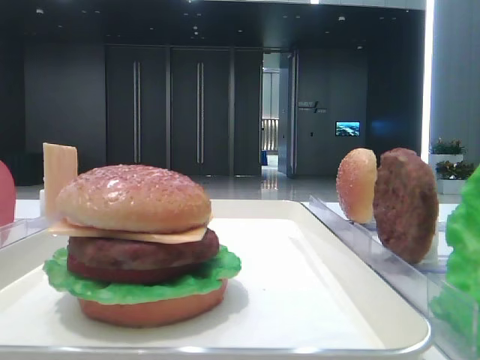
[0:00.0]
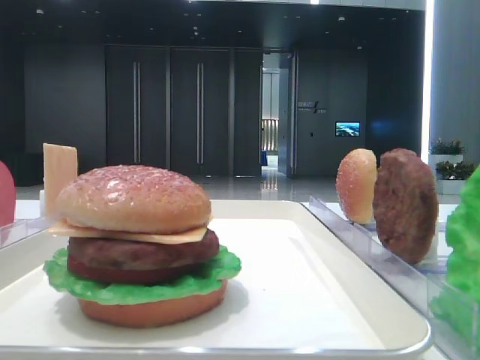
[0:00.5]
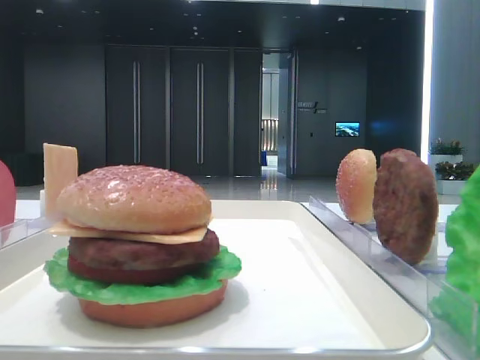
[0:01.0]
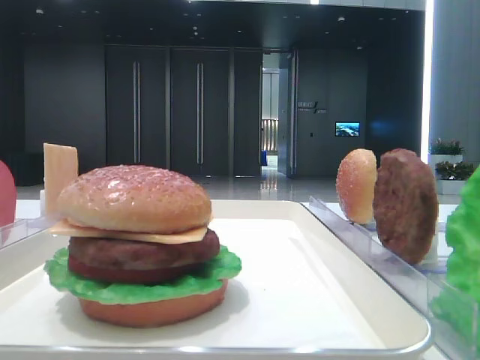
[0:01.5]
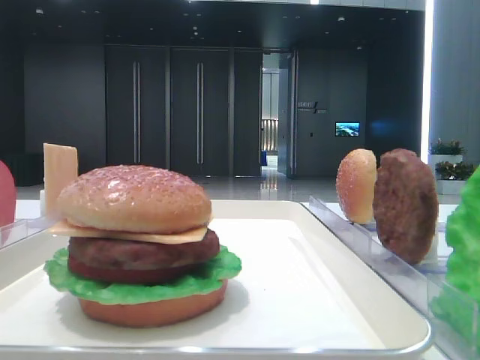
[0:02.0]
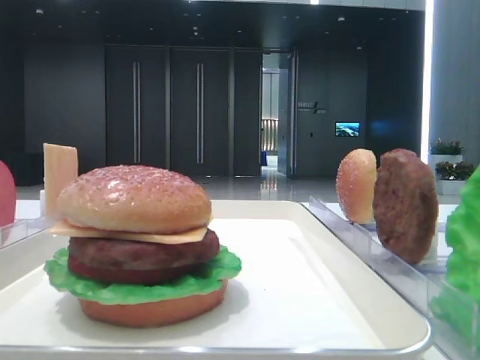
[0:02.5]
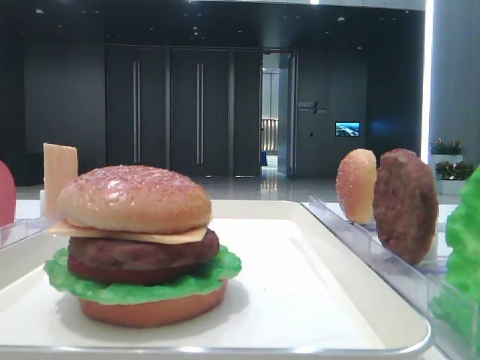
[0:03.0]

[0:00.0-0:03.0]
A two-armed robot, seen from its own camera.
0:01.5 to 0:03.0: Both grippers stay put.

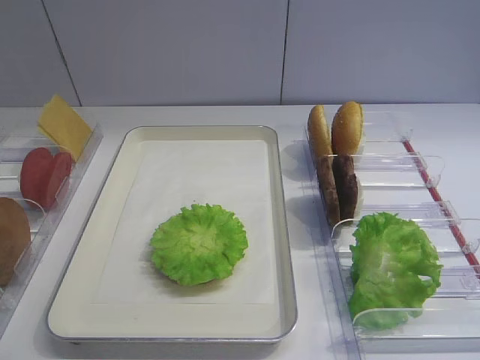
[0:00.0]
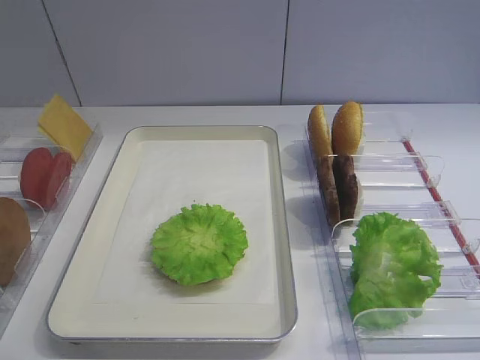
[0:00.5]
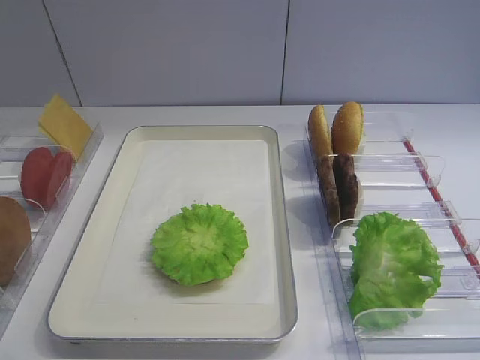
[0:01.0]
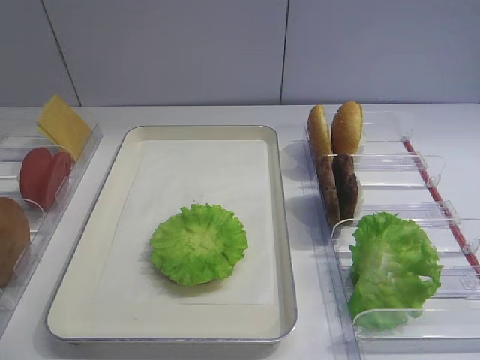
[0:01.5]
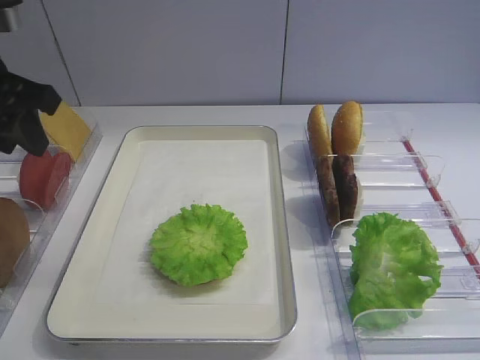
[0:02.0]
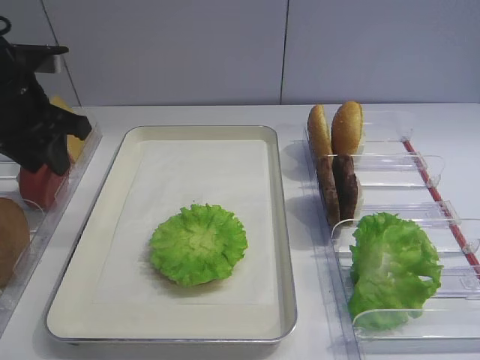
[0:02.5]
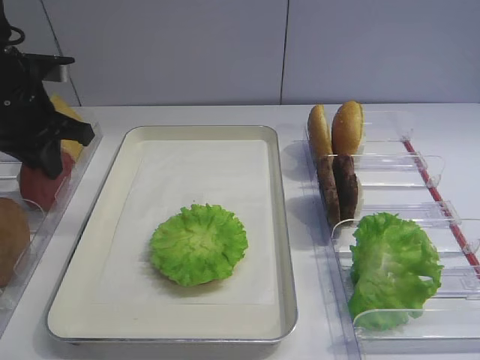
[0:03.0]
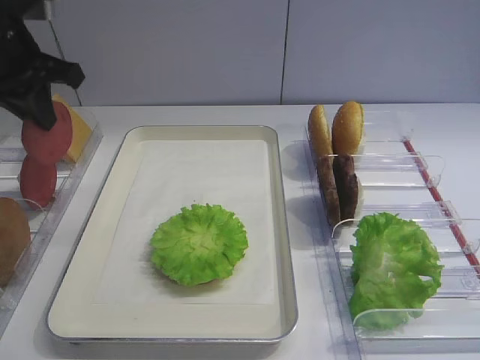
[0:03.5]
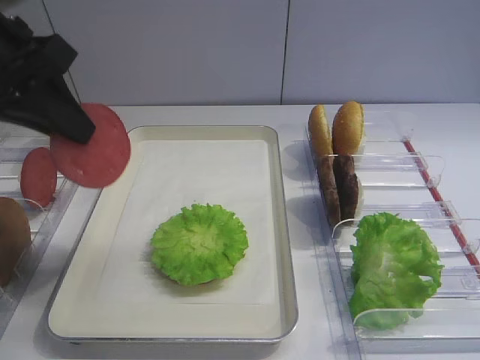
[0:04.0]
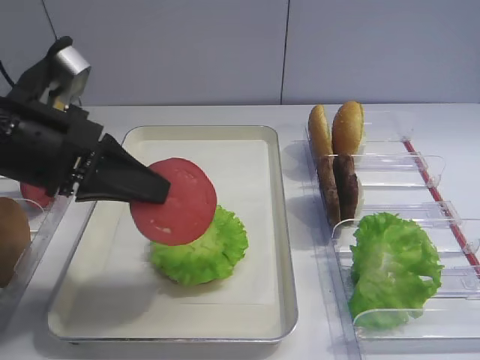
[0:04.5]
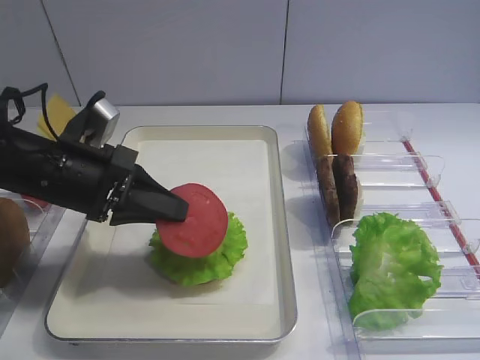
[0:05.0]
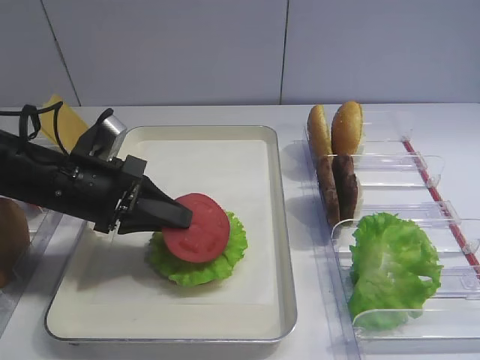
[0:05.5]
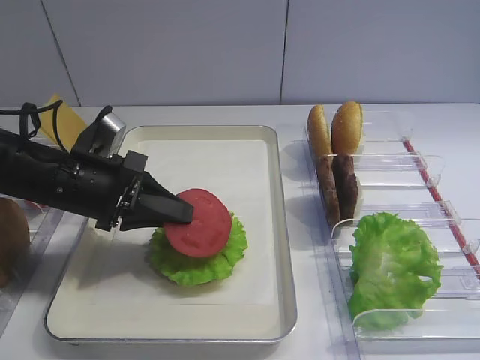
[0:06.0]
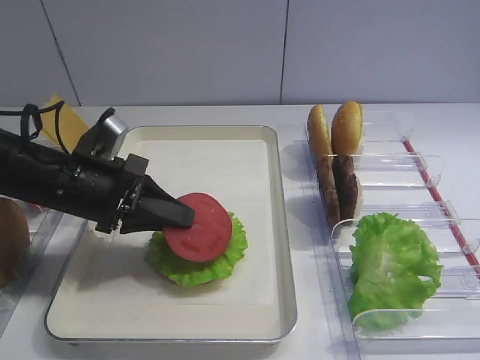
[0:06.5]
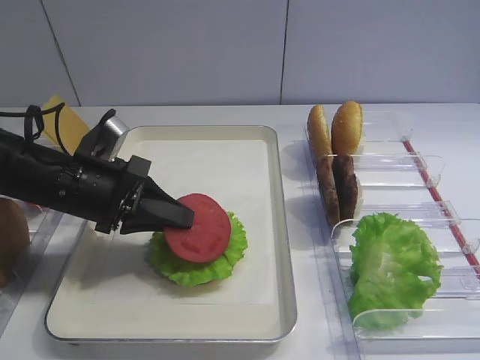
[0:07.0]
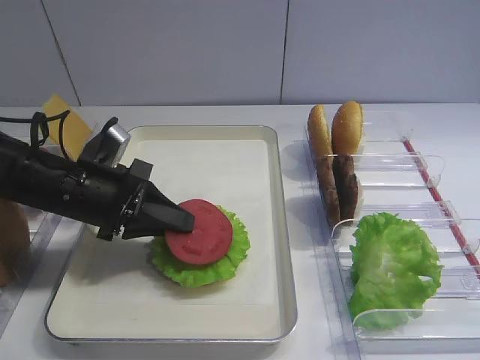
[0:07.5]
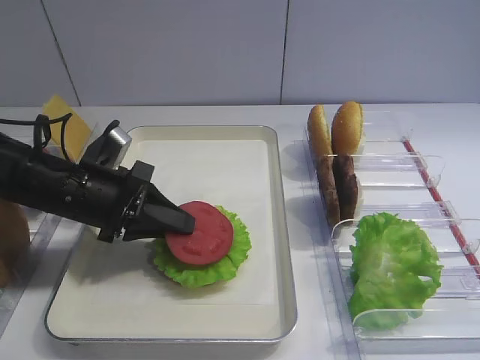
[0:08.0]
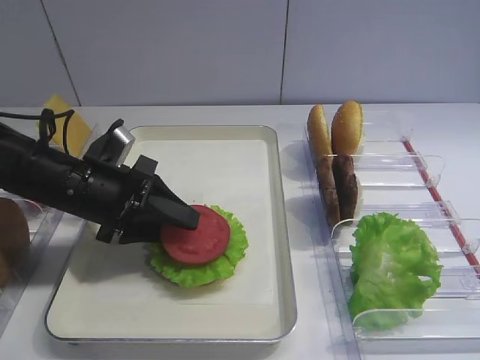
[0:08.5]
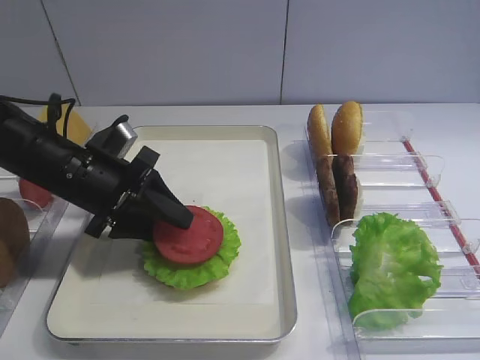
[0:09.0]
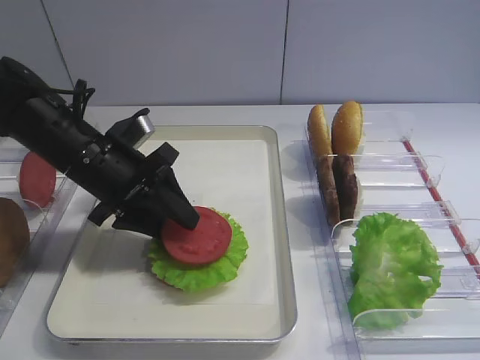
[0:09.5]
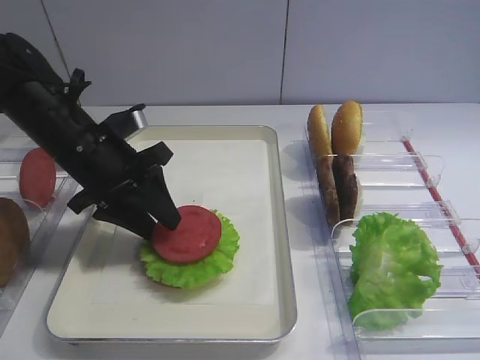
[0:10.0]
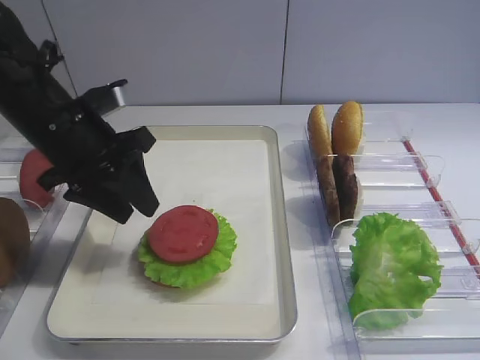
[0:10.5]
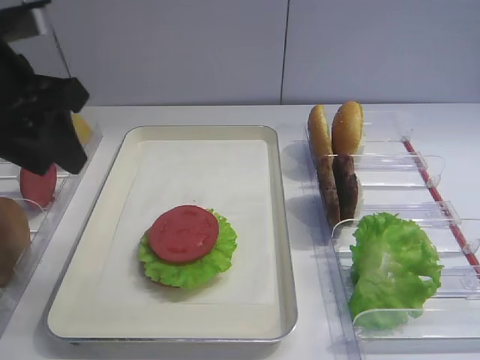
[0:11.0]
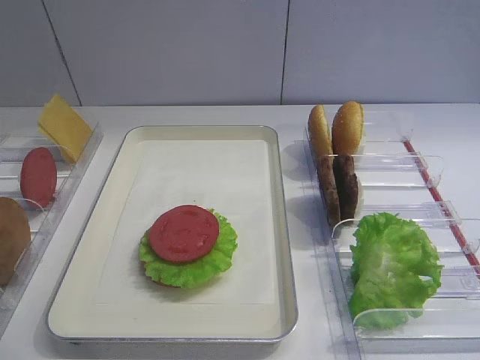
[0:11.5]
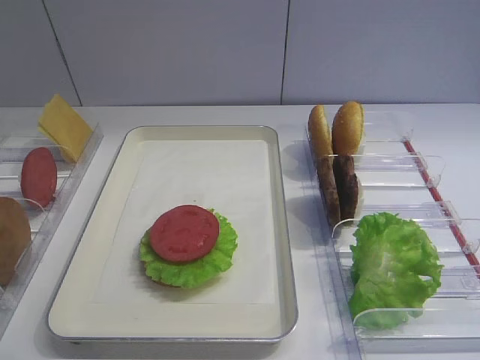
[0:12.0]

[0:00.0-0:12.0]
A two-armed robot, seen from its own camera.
Step, 0:00.0 to 0:03.0: Pick up the tomato slice with the left gripper.
Step, 0:03.5 to 0:10.0: Place the tomato slice on the lettuce leaf with the left gripper.
0:02.0 to 0:04.0: The left gripper goes forward and returns, some 5 cm each way, and closes up.
0:04.0 to 0:06.0: The left gripper travels downward by approximately 15 cm.
0:06.0 to 0:08.0: The grippers stay close to where they were, moving slightly.
0:08.0 to 0:10.0: The left gripper changes place by roughly 5 cm, and opens up.
0:10.0 to 0:12.0: The left gripper is displaced backward, upward and to the left by approximately 30 cm.

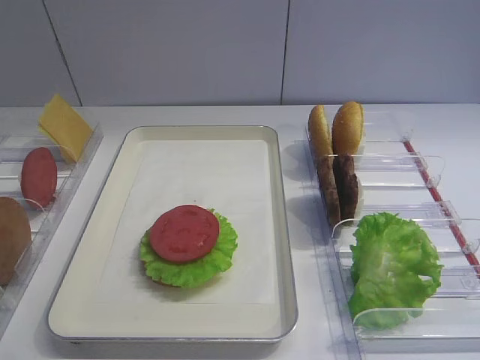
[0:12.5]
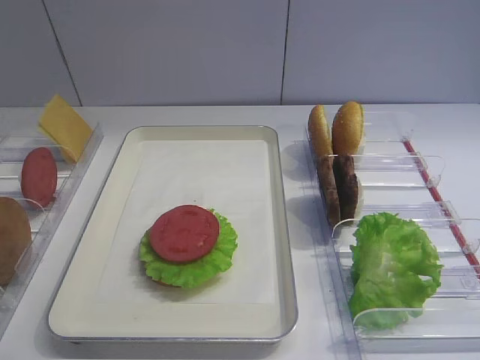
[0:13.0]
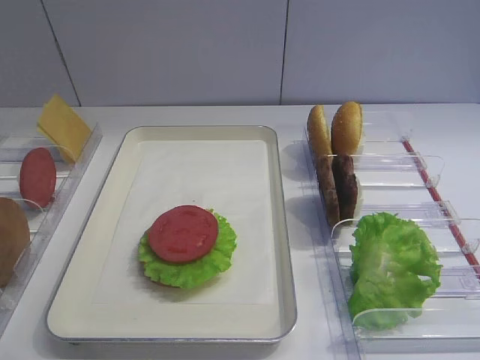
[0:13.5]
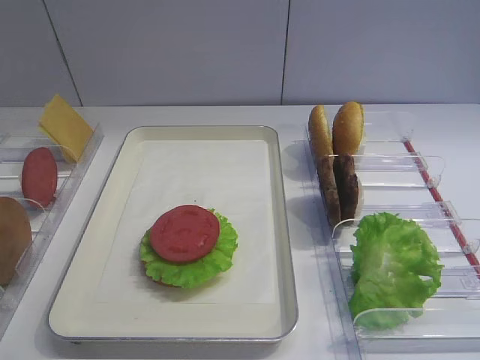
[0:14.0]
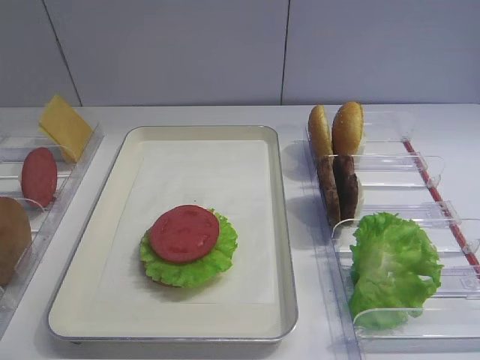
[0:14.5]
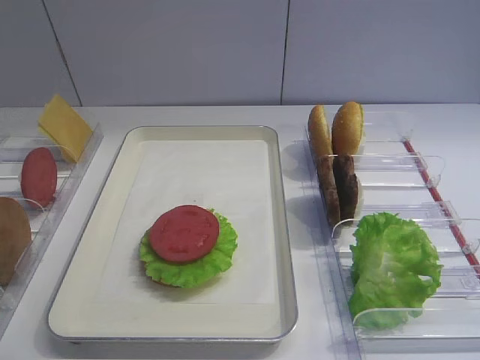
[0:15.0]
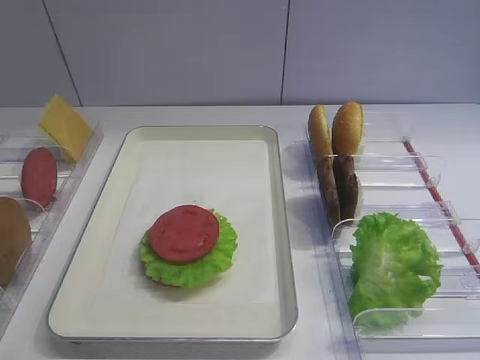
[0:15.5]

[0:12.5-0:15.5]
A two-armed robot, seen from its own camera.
0:14.0 to 0:15.5: The two grippers keep their place.

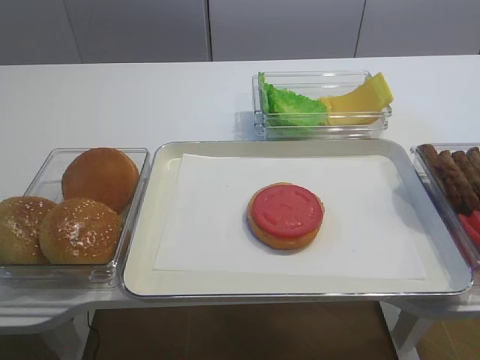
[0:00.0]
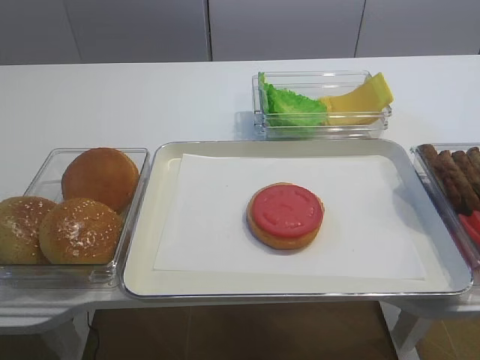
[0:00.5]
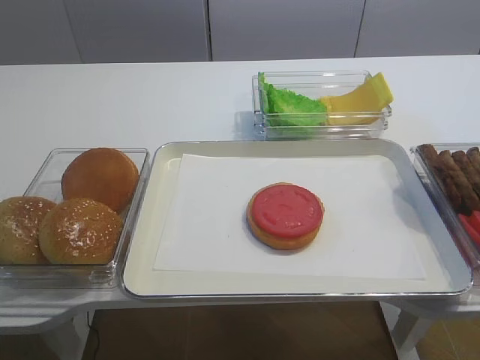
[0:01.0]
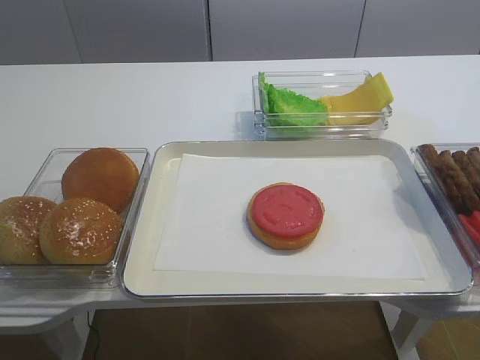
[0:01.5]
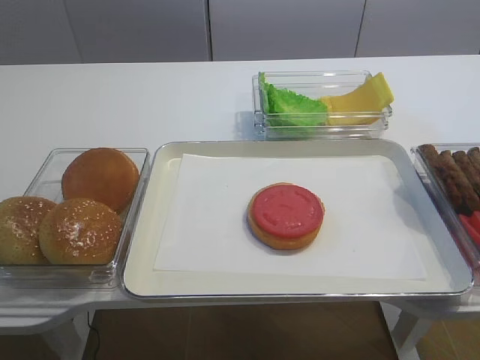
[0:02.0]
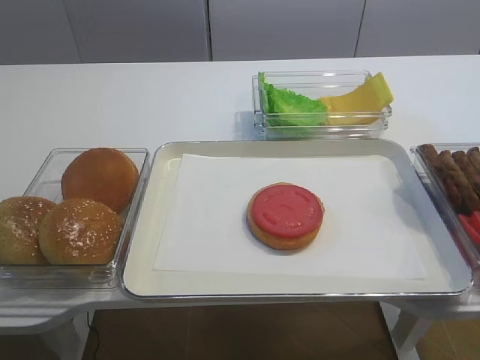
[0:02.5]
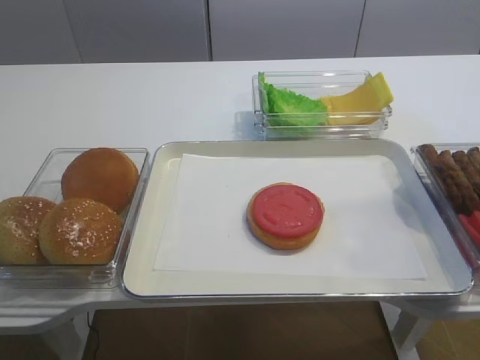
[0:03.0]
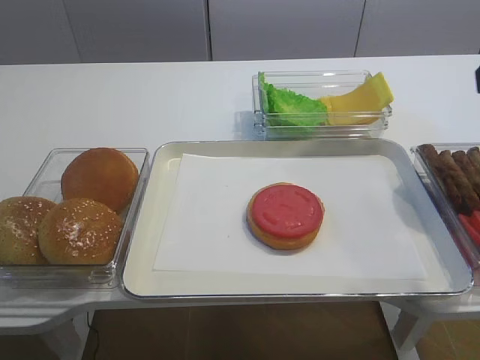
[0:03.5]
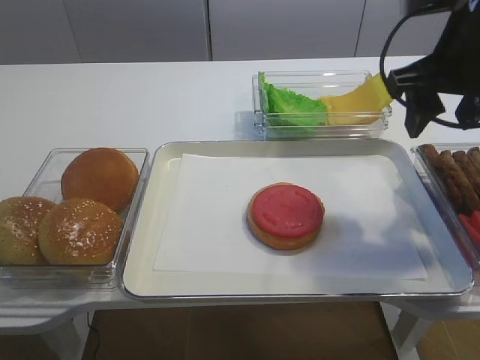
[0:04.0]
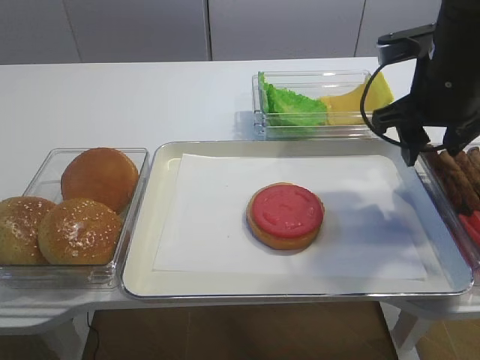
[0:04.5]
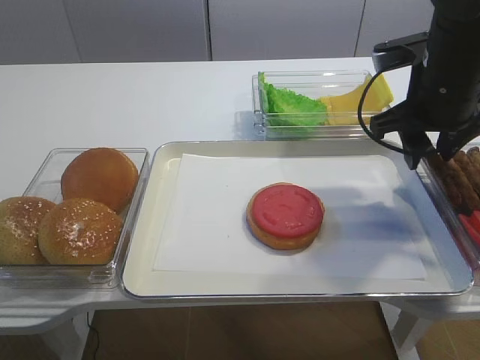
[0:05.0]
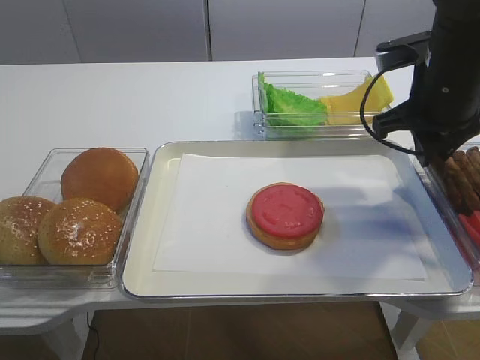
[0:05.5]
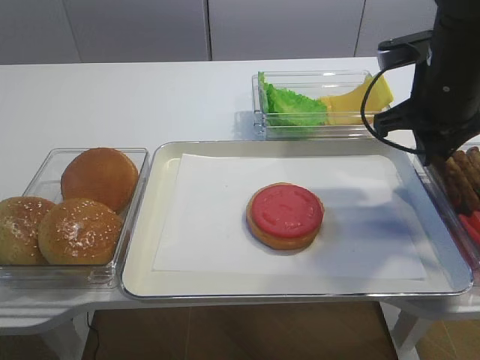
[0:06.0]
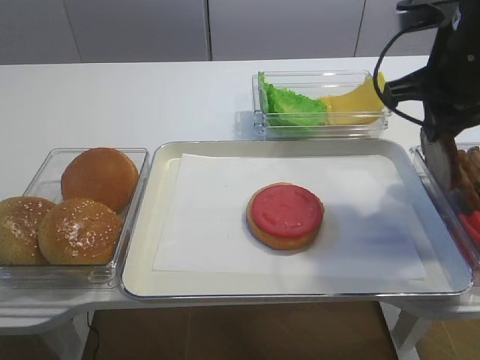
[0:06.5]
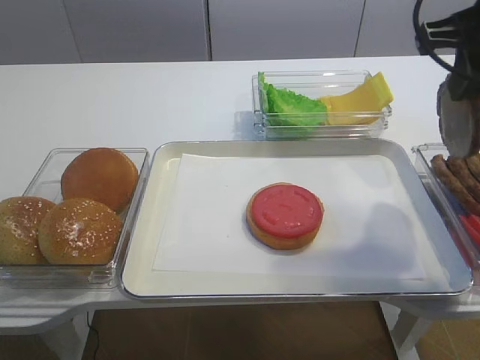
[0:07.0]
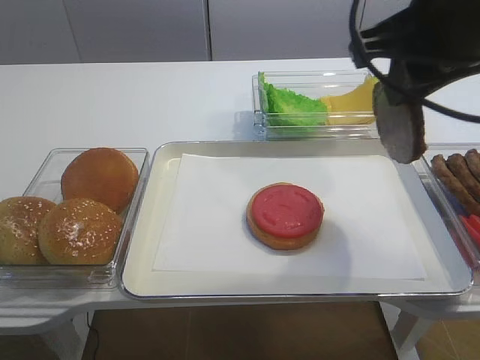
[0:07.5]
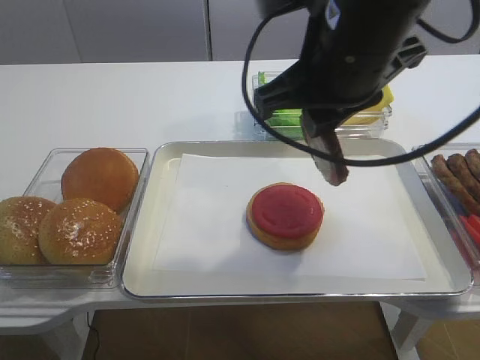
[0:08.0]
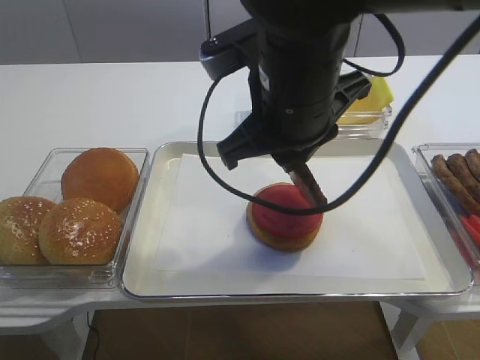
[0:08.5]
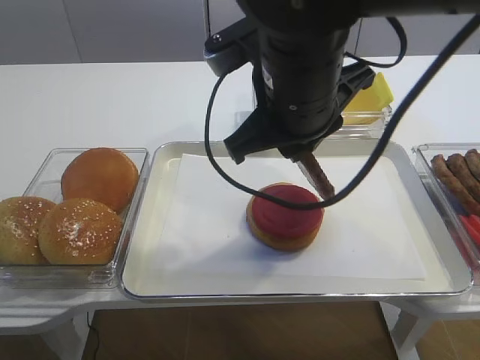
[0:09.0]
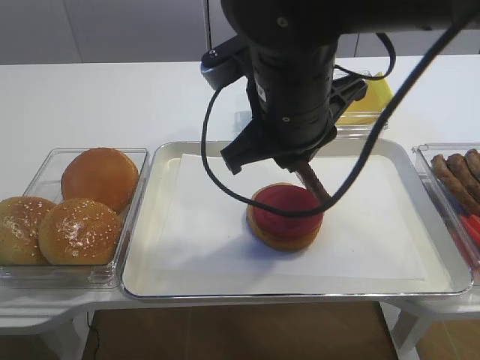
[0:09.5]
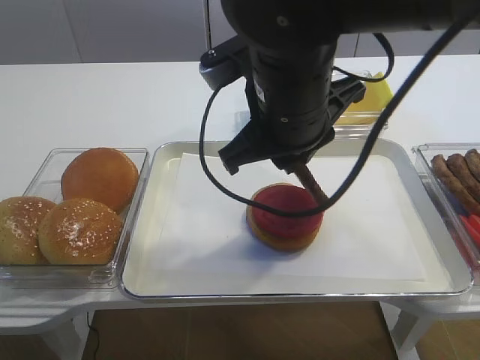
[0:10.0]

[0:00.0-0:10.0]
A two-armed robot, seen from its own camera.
Step, 0:00.0 to 0:06.5: Pick up the cutlet with the right gripper.
0:02.0 to 0:04.0: The right gripper is displaced forward by approximately 30 cm, and opens.
0:04.0 to 0:06.0: The right gripper moves downward, some 5 cm, and closes up.
0:06.0 to 0:08.0: The right gripper goes some 15 cm to the left, backward and upward.
0:08.0 to 0:10.0: The right gripper ends up about 5 cm from where it was.
